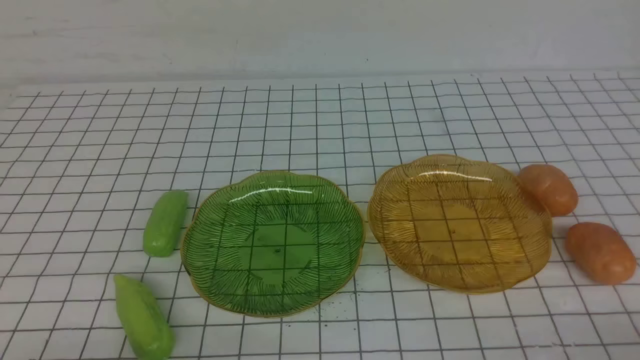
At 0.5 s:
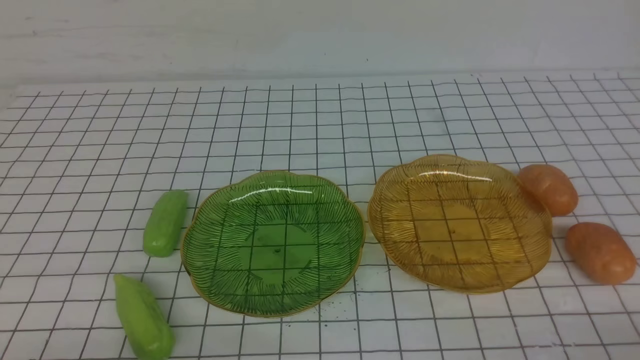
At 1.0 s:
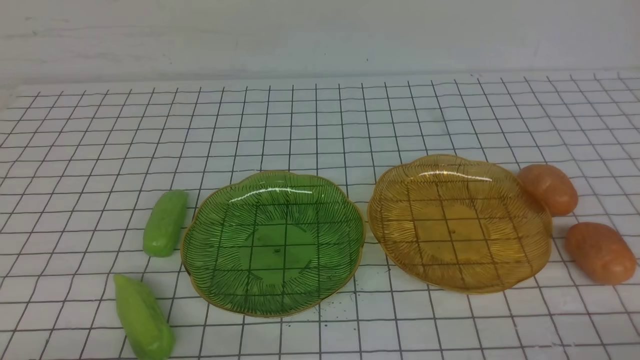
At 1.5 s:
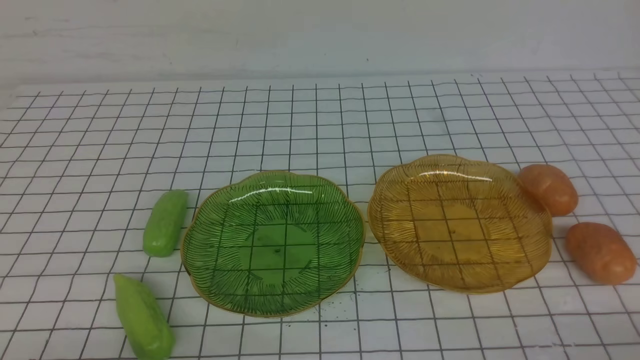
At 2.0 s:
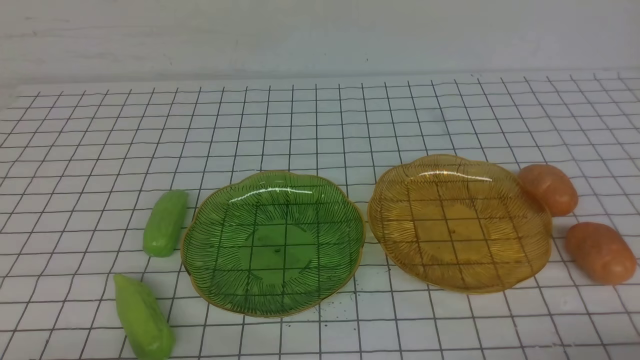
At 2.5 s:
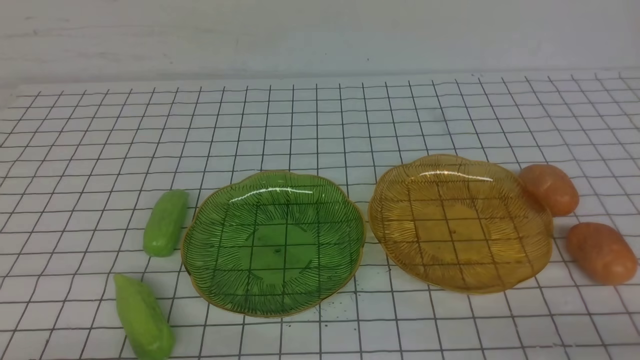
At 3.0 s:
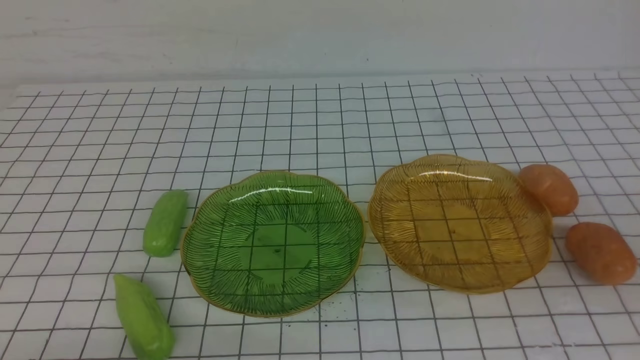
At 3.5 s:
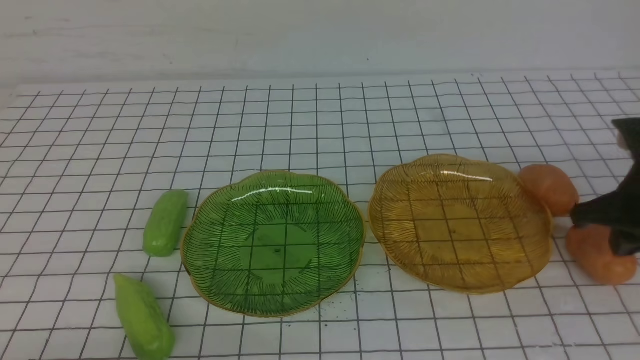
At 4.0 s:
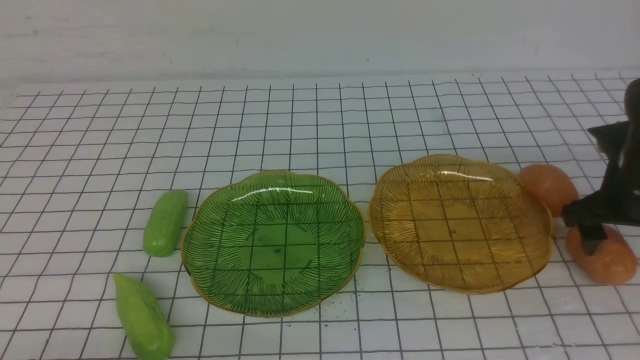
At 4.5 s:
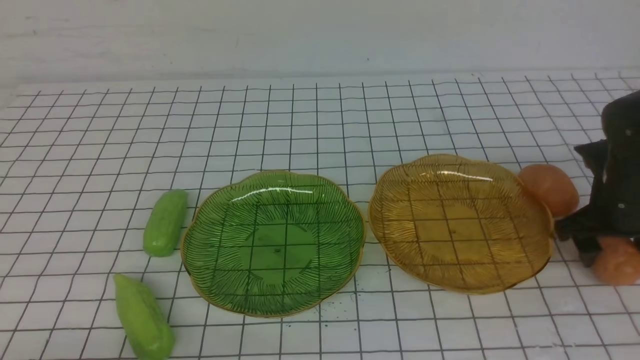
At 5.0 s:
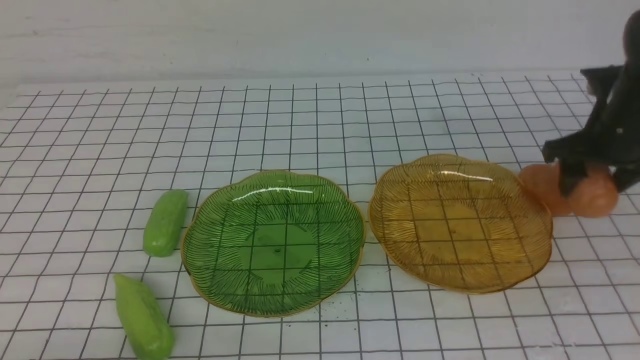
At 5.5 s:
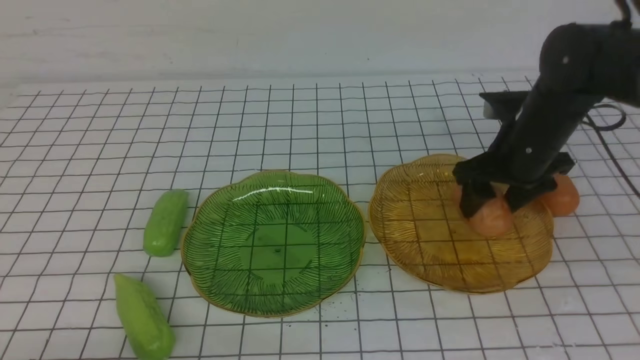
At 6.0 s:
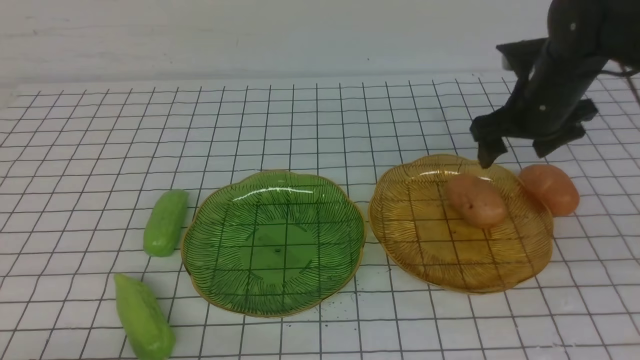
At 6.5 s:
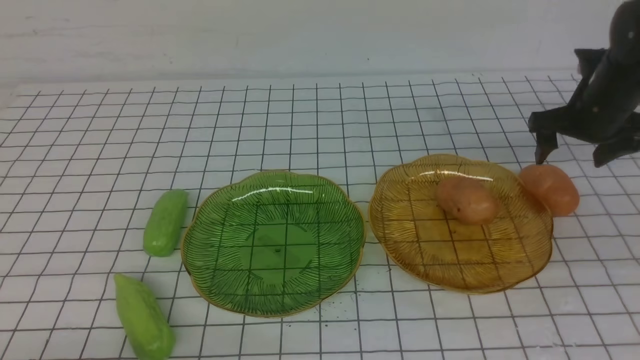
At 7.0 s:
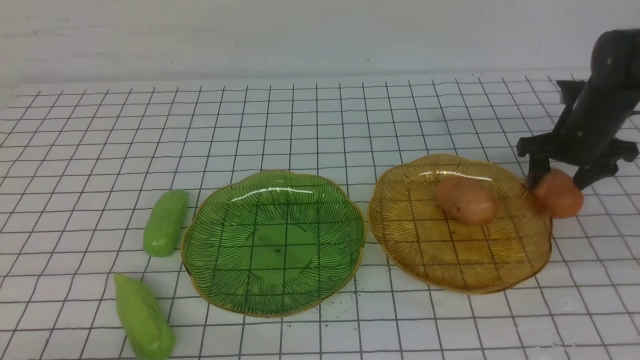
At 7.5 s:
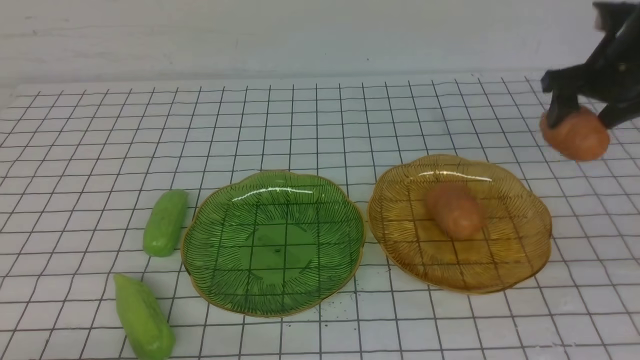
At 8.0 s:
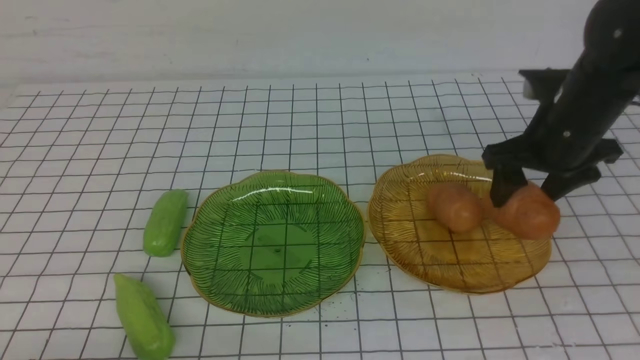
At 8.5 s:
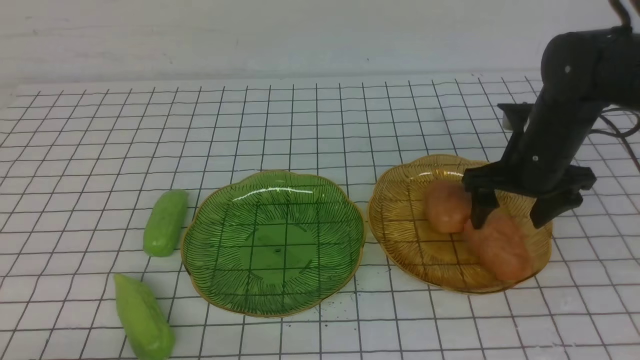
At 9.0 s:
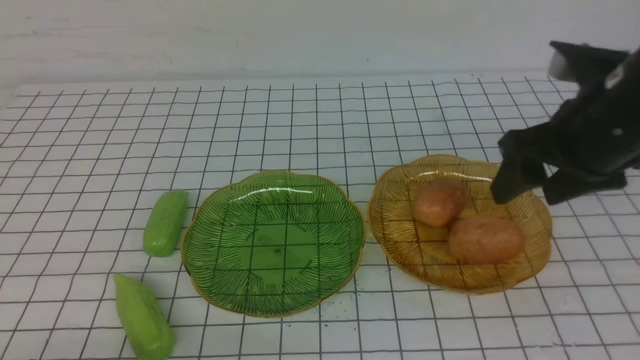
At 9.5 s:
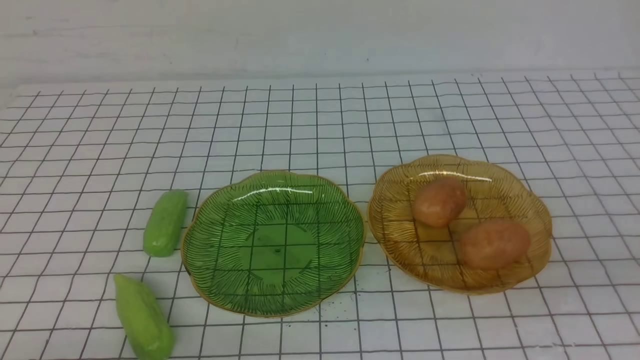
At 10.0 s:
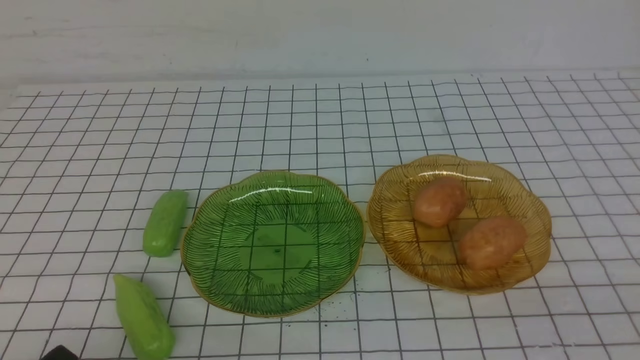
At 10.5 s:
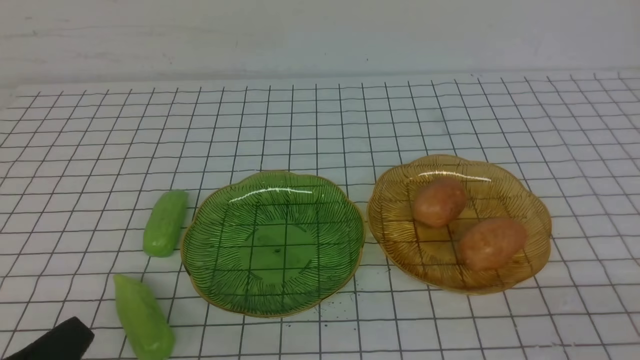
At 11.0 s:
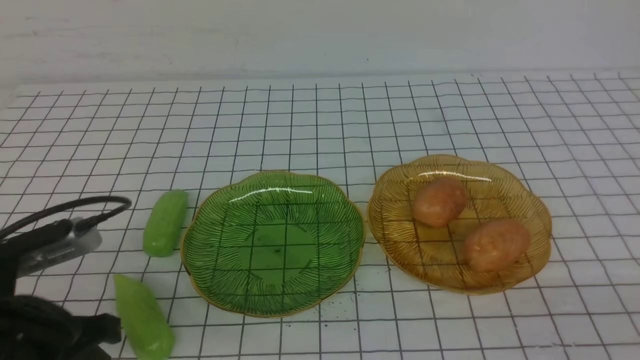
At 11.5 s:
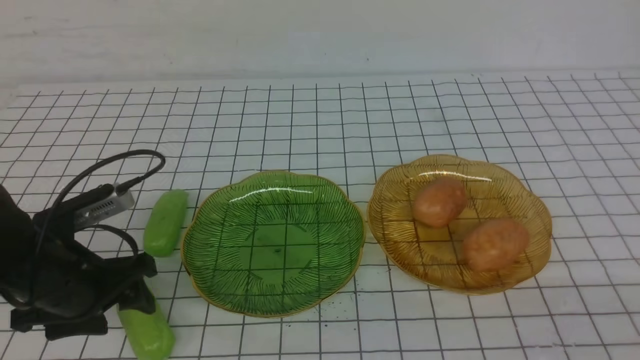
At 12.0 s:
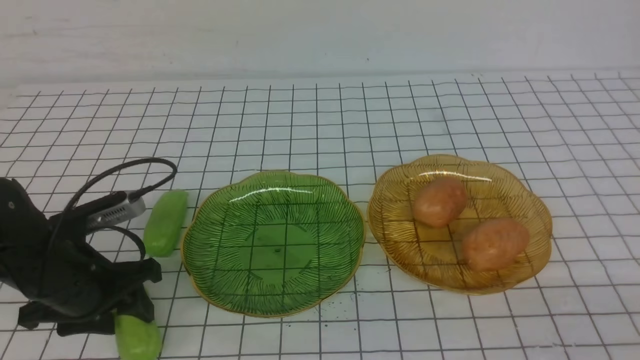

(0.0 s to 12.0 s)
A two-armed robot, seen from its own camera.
Step, 0.0 s - 8.5 s: Grab a potato with your right arm and put it on the right plate.
2.0 s - 4.0 s: The right gripper travels forward by approximately 30 cm, and opens up.
4.0 s - 6.0 s: The right gripper moves forward and to the left, about 10 cm.
6.0 s - 8.0 s: The right gripper moves backward, about 5 cm, and goes downward and returns, roughly 5 cm each way.
8.0 s - 10.0 s: The right gripper travels backward by some 35 cm, and closes up.
10.0 s - 12.0 s: The left gripper shifts about 20 cm forward, and opens up.

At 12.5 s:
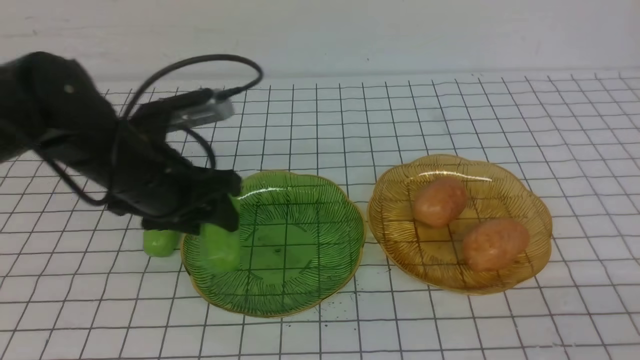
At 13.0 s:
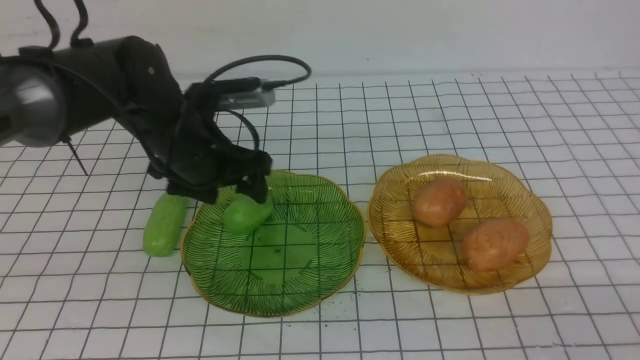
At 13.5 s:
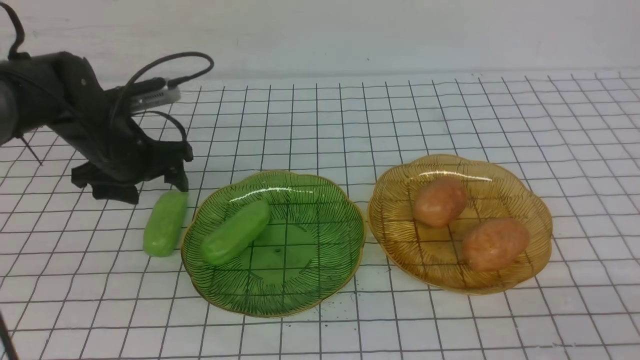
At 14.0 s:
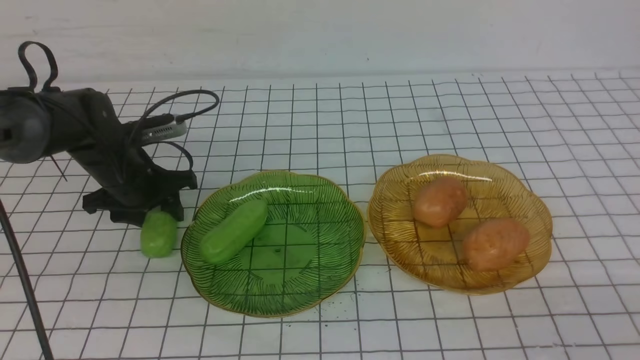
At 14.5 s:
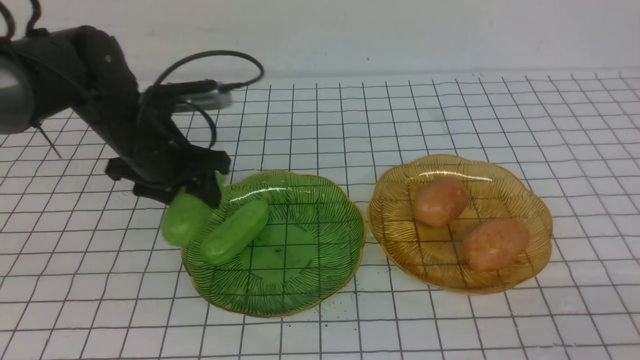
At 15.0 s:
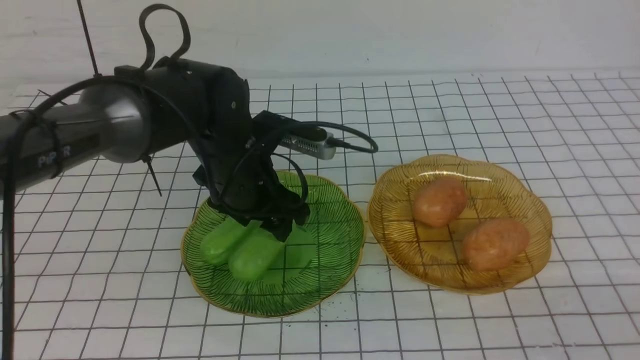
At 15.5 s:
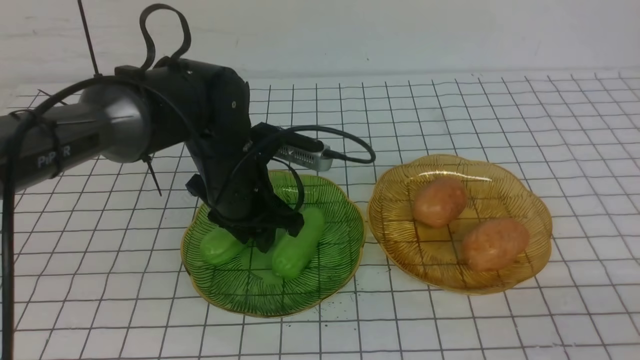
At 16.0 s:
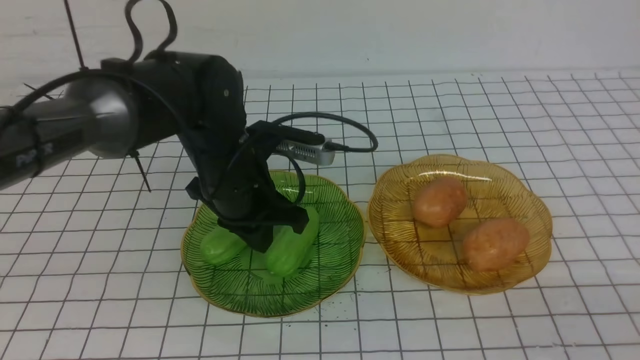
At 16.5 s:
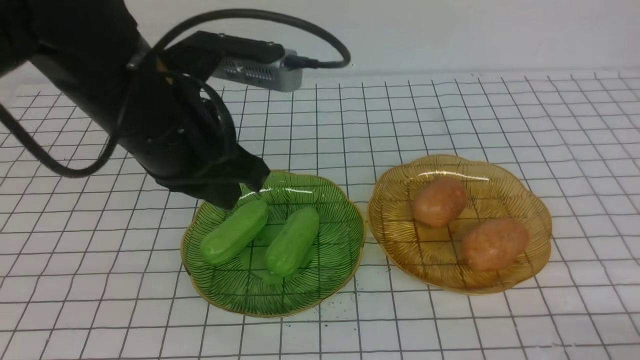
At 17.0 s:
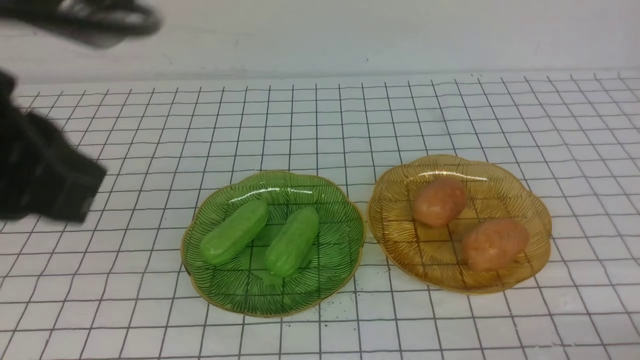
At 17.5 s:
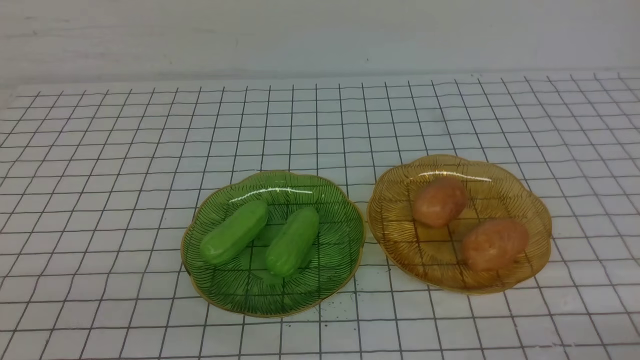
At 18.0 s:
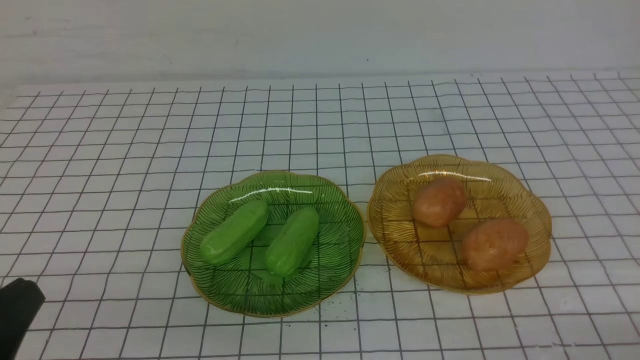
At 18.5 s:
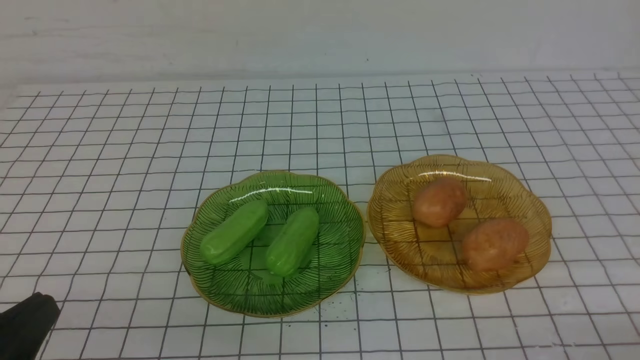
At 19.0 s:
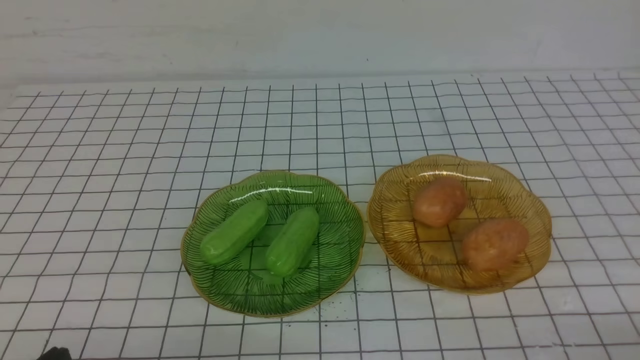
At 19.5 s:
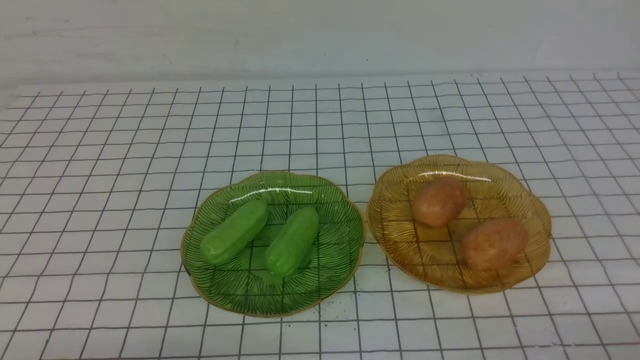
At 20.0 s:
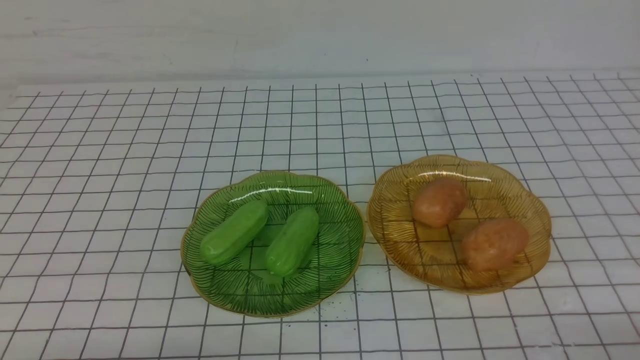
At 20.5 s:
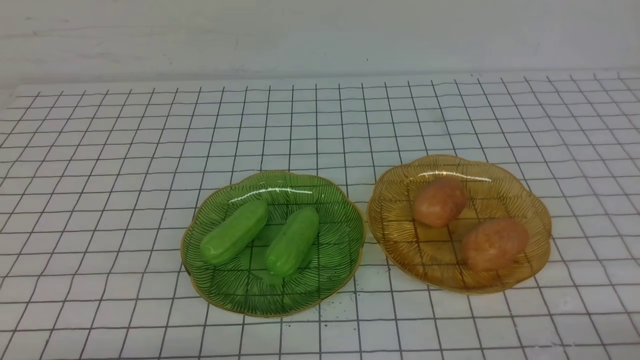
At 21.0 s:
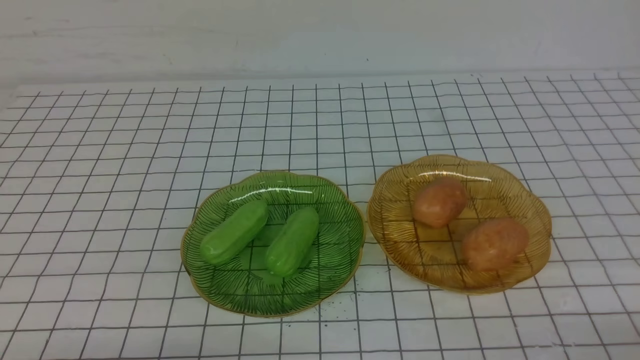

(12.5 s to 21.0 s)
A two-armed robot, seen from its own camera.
Step, 12.5 s - 15.0 s: use the left arm to grab a chayote and put it into the left plate.
12.5 s - 14.5 s: The left gripper shifts about 5 cm forward.
14.5 s - 16.5 s: The right gripper travels downward by roughly 5 cm. Meanwhile the left gripper moves upward and backward, some 15 cm, and closes its fingers.
16.5 s - 19.0 s: The left gripper heads backward, downward and to the left, covering approximately 30 cm.
